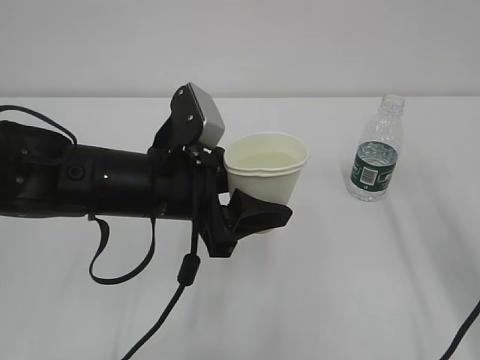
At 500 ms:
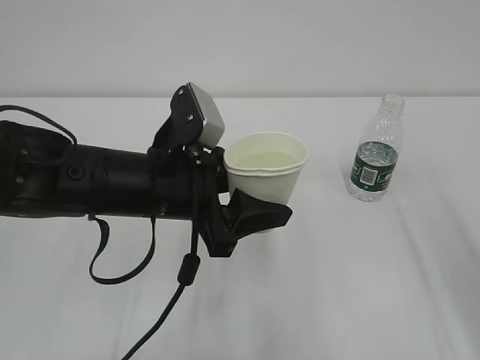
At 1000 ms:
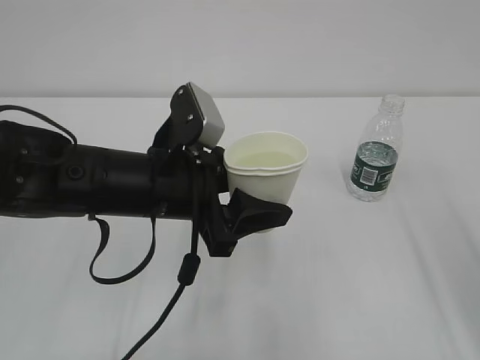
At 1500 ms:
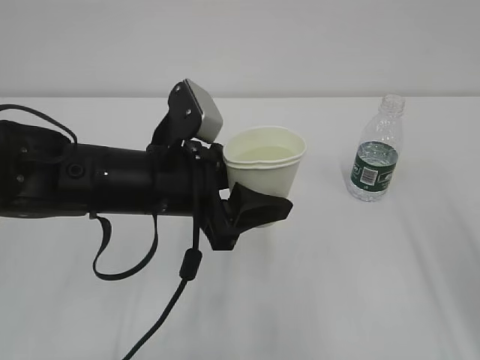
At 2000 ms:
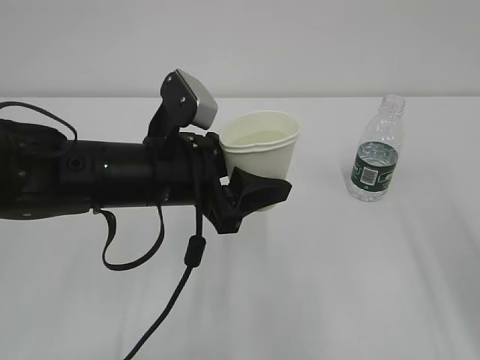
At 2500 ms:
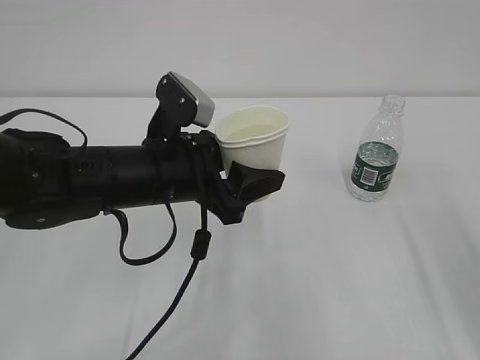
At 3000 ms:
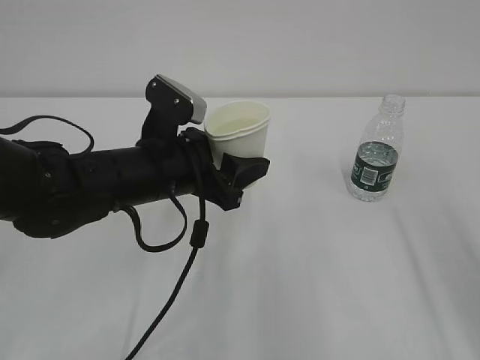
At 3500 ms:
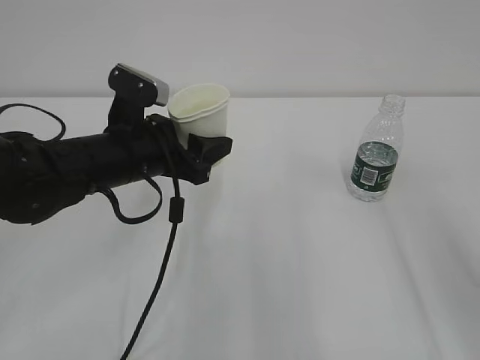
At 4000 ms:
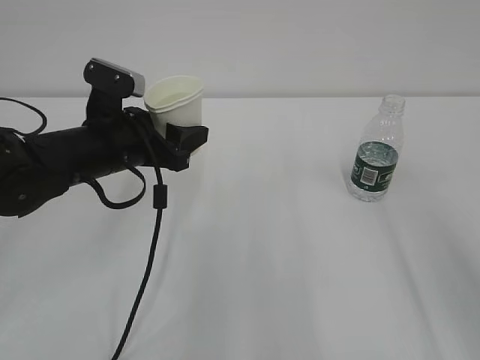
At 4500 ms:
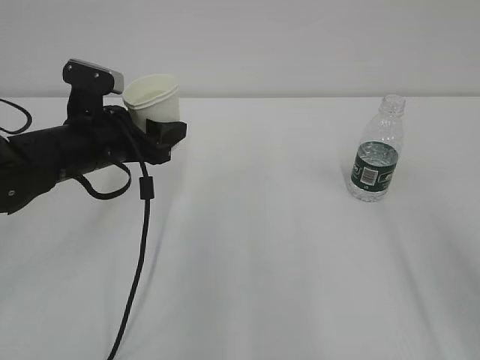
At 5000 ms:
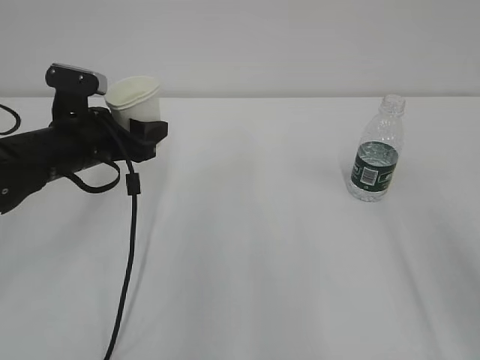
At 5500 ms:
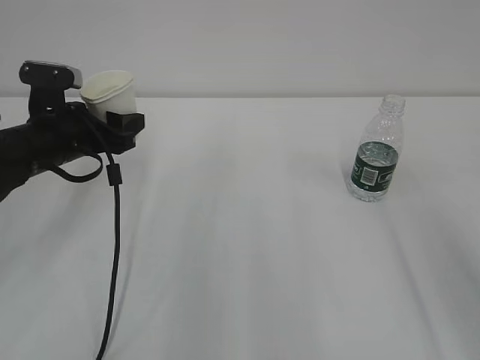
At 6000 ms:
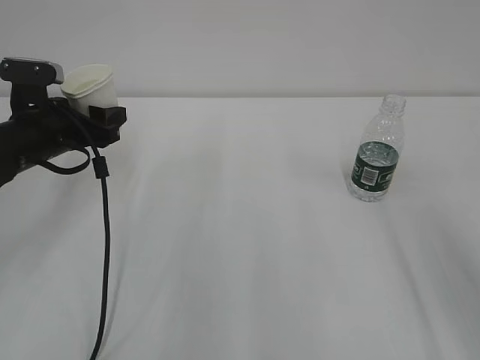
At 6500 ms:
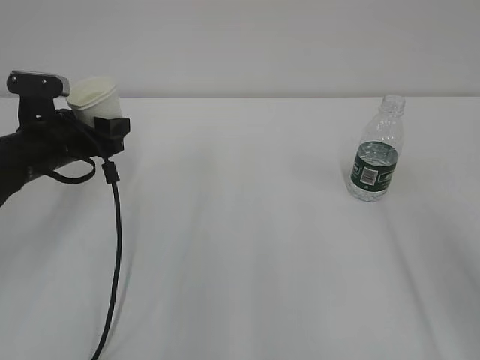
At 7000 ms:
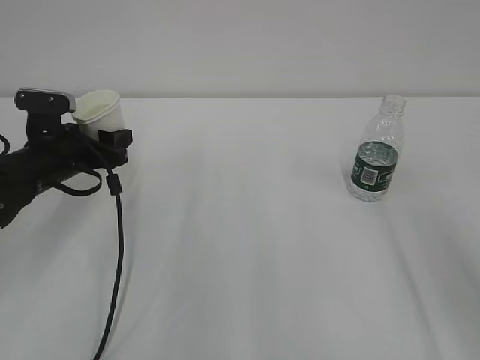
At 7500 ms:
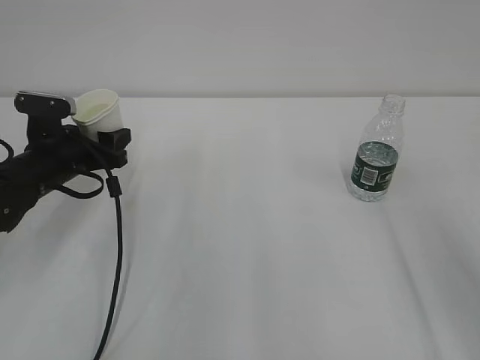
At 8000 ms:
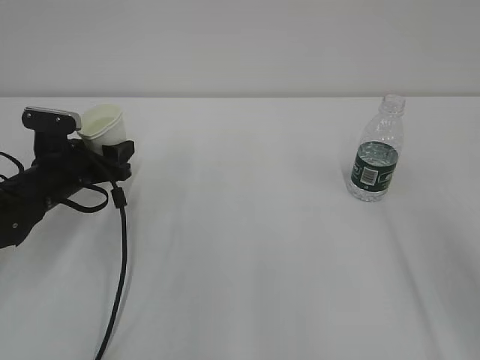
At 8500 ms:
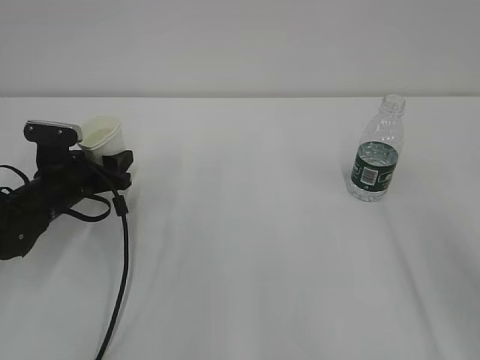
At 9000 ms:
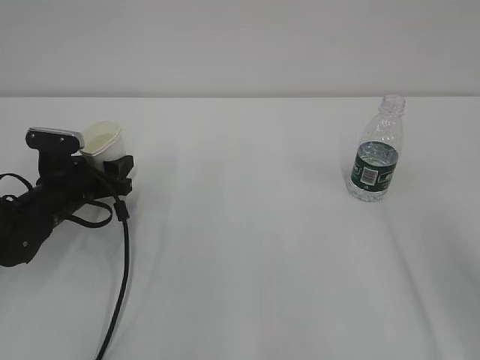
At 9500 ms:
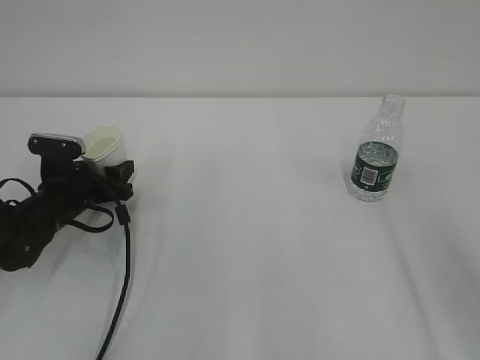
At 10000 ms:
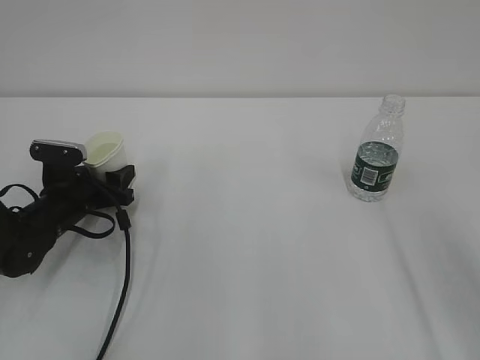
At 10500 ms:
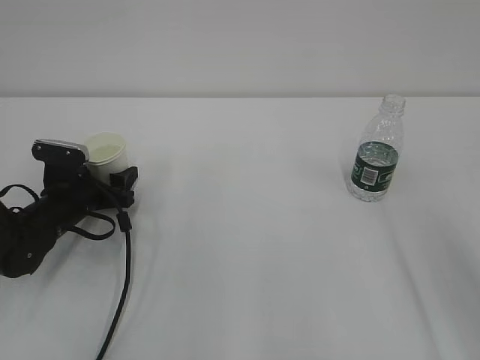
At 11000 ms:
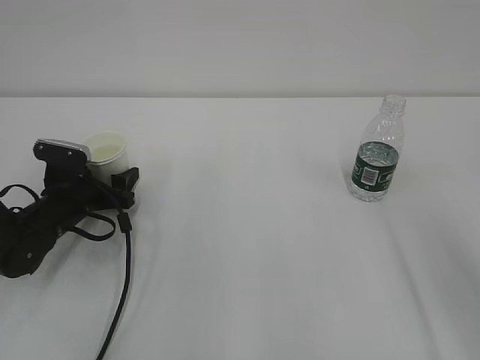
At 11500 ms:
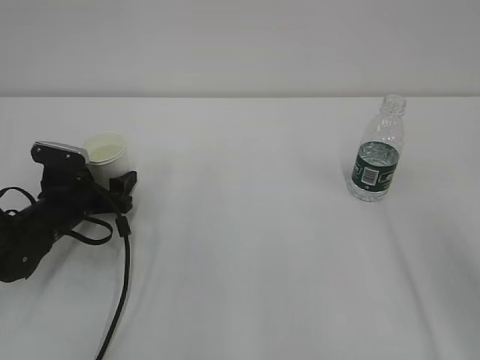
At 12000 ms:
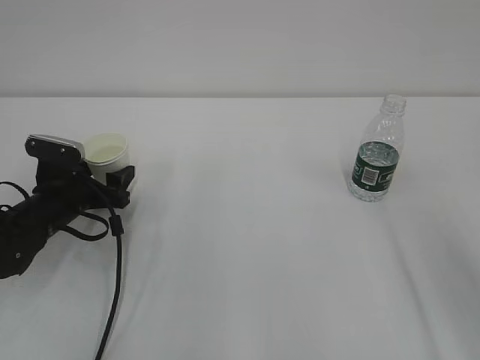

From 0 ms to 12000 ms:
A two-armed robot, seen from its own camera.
From 0 ms to 2000 ms: The right gripper shifts approximately 5 cm backward.
From 2000 ms to 4000 ms: The left gripper is displaced to the left and forward by about 10 cm.
From 4000 ms to 6000 ms: The left gripper shifts about 10 cm to the left.
From 6000 ms to 8000 ms: The left gripper moves downward, approximately 5 cm.
From 8000 ms to 10000 ms: The left gripper shifts by roughly 5 cm.
From 10000 ms to 12000 ms: The left gripper opens up.

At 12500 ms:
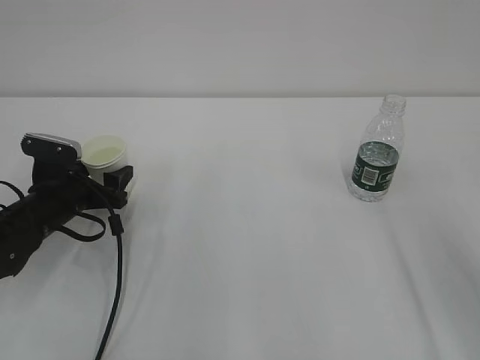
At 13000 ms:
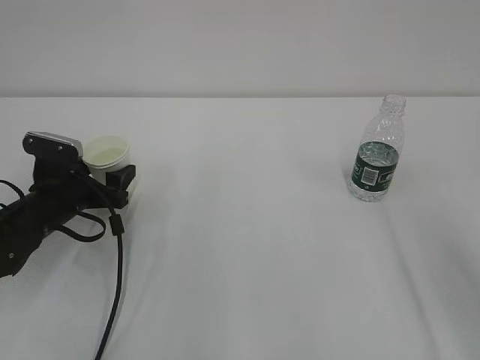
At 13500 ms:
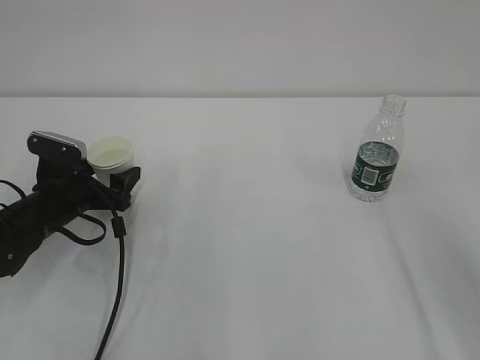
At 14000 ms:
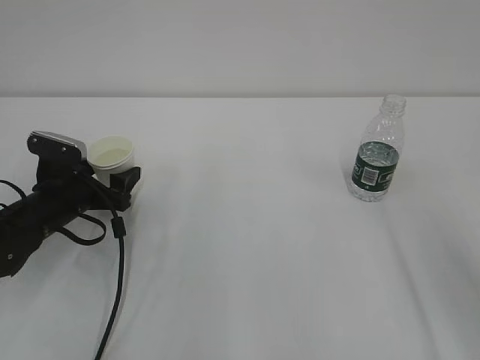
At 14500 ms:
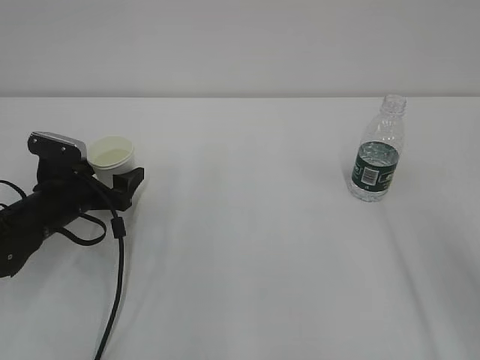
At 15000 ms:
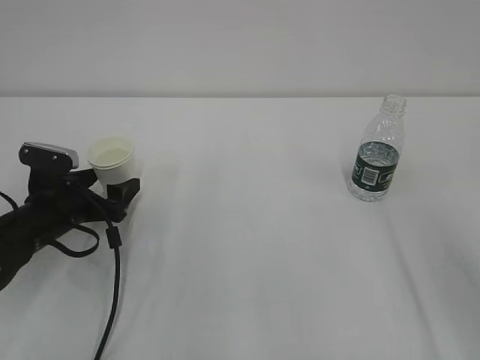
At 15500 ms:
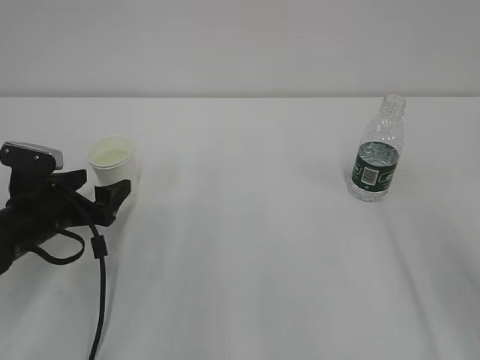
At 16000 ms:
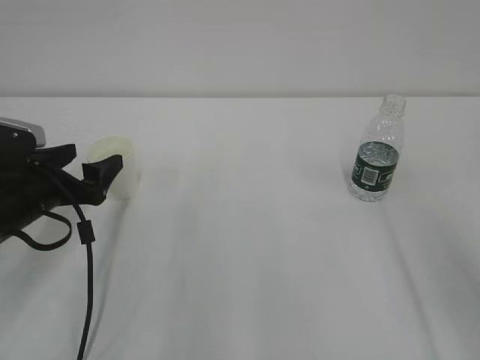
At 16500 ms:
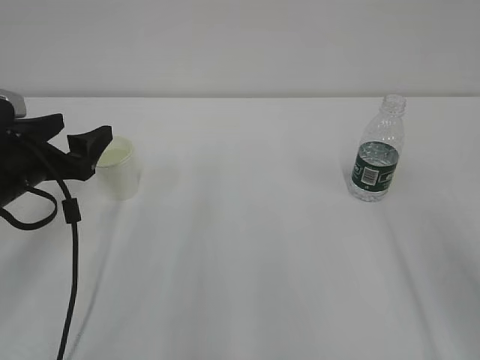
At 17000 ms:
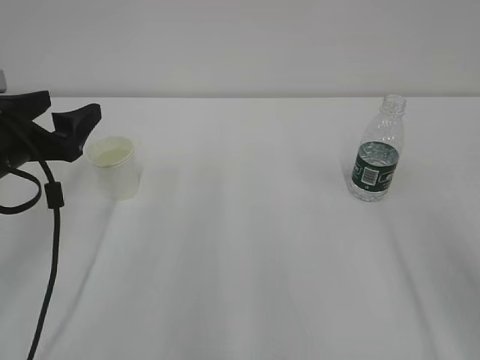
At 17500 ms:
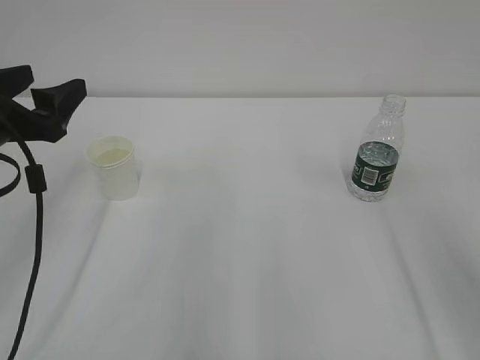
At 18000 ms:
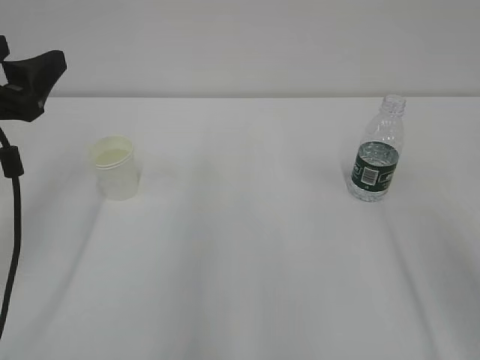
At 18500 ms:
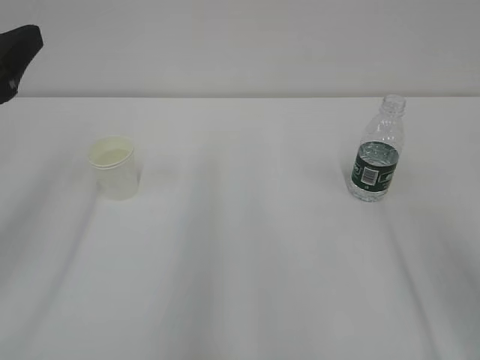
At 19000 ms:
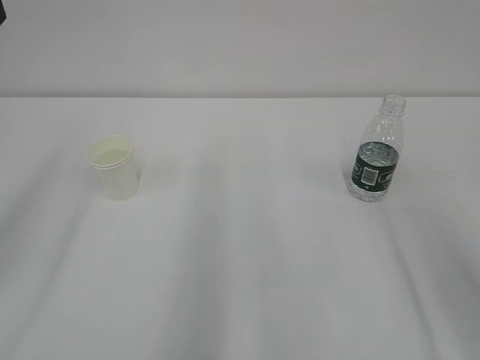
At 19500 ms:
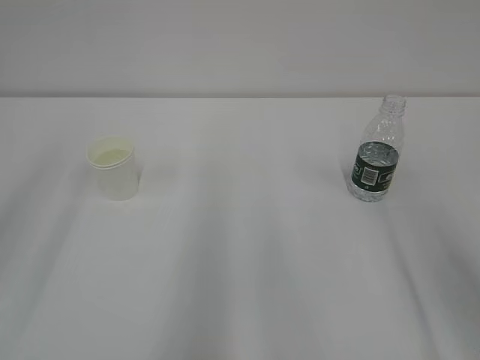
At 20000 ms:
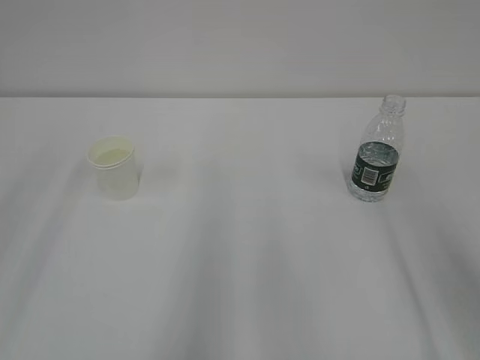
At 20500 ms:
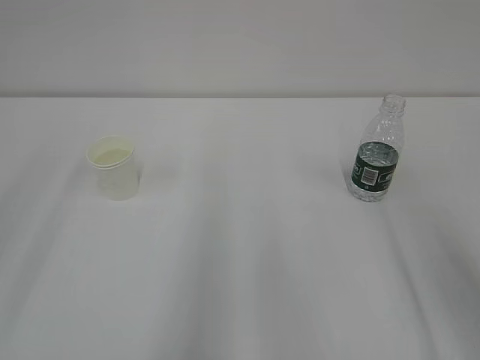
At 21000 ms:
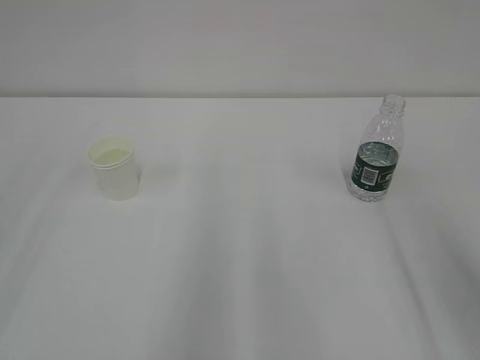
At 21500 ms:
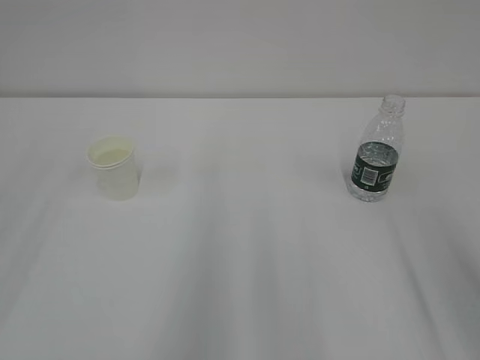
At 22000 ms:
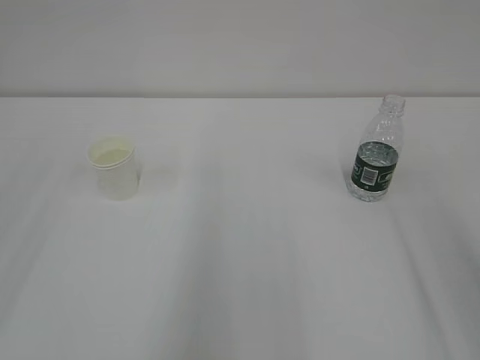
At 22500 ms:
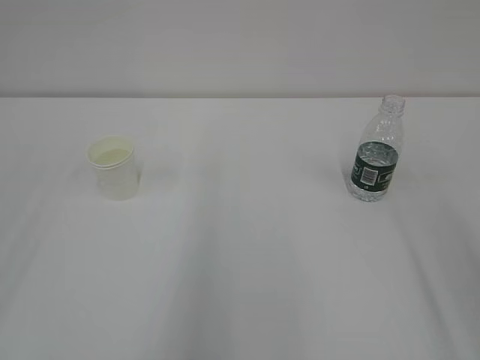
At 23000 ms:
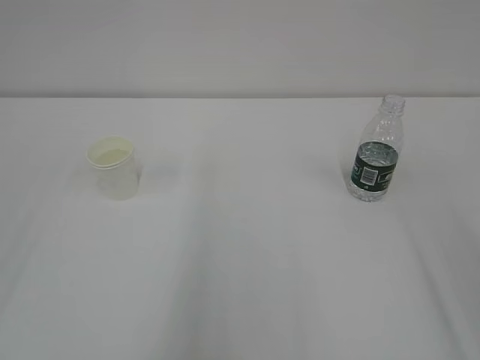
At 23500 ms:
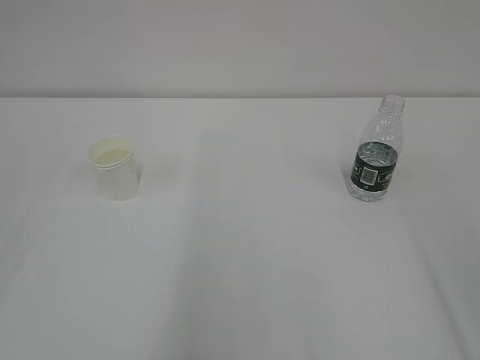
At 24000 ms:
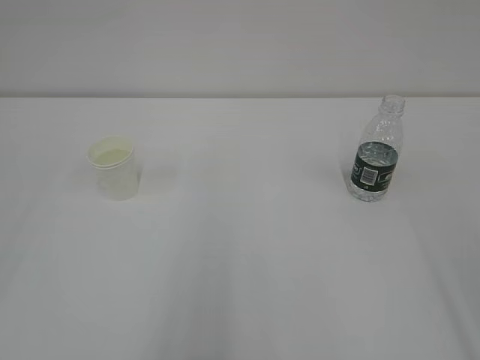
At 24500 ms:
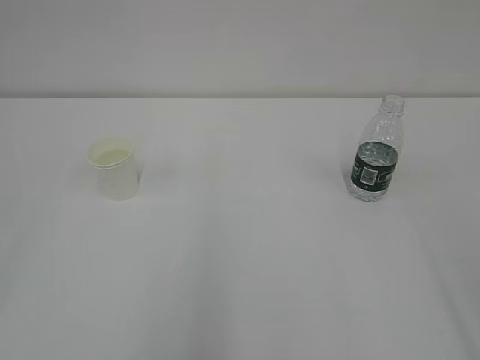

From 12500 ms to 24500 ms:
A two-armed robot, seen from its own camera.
From 12500 ms to 14500 ms: The left gripper opens its fingers.
From 14500 ms to 16500 ms: The left gripper is displaced upward and backward by some 10 cm.
From 16500 ms to 18500 ms: The left gripper travels upward and backward by about 15 cm.
From 18500 ms to 20500 ms: The left gripper moves backward and upward, about 10 cm.

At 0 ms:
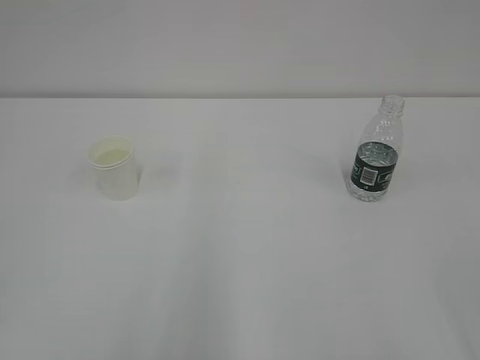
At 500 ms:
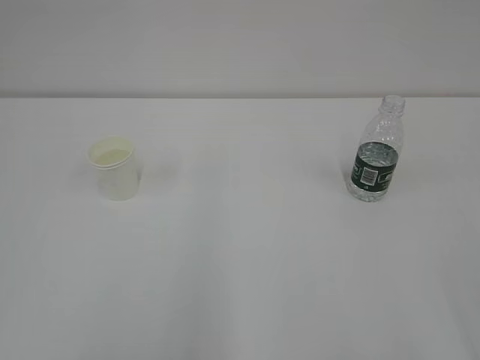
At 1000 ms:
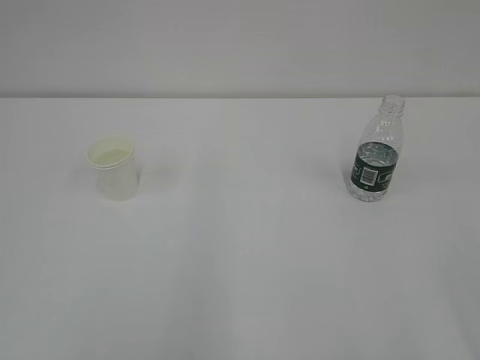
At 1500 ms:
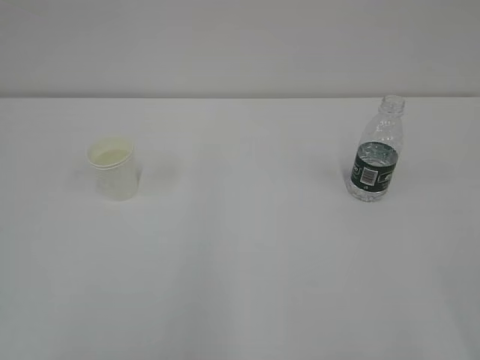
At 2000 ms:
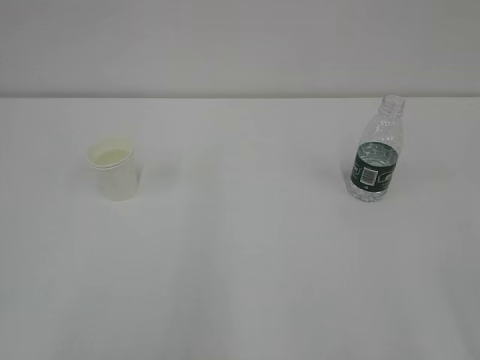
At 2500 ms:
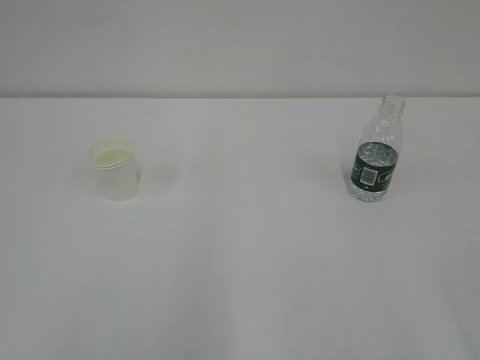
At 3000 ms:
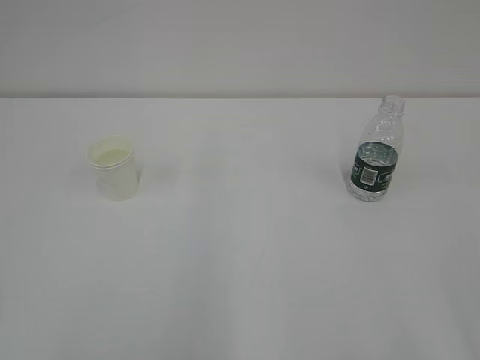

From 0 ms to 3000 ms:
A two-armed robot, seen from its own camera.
From 1500 ms to 3000 ms: Neither gripper changes place.
